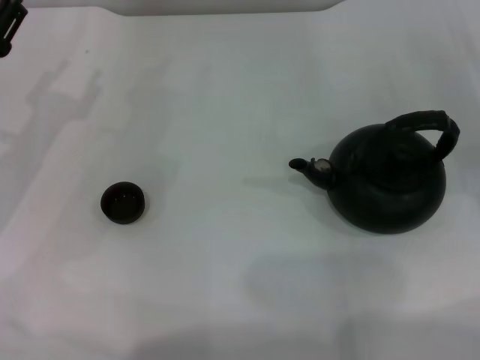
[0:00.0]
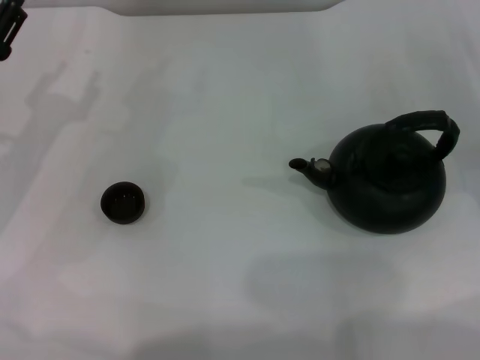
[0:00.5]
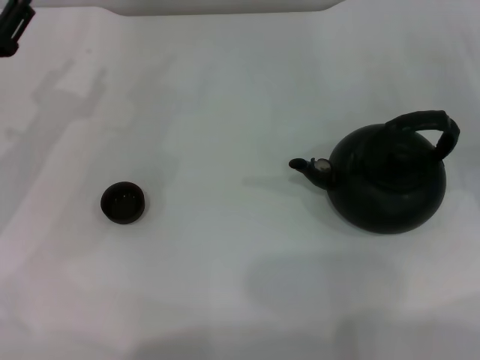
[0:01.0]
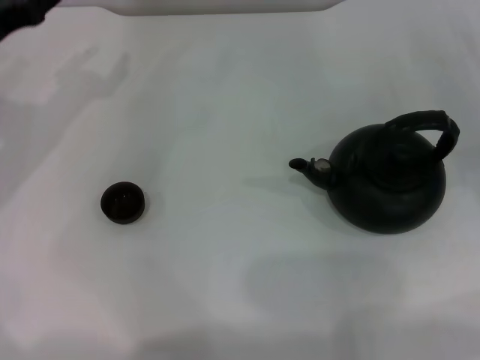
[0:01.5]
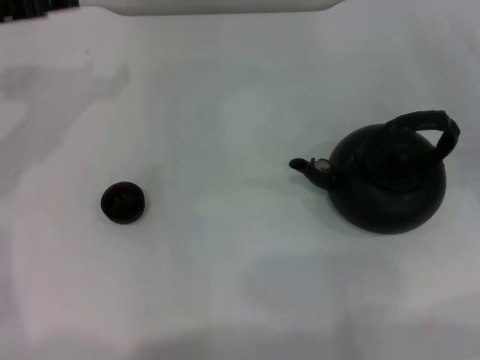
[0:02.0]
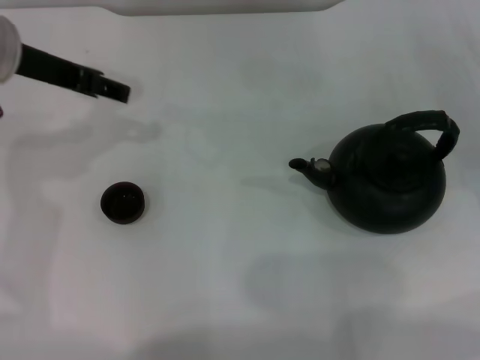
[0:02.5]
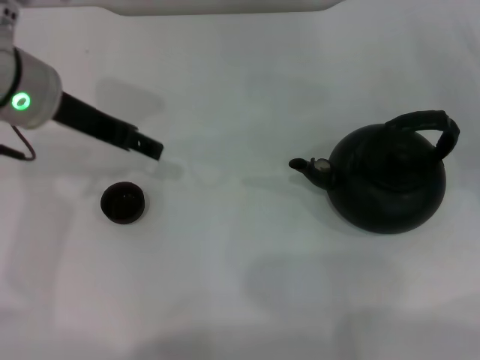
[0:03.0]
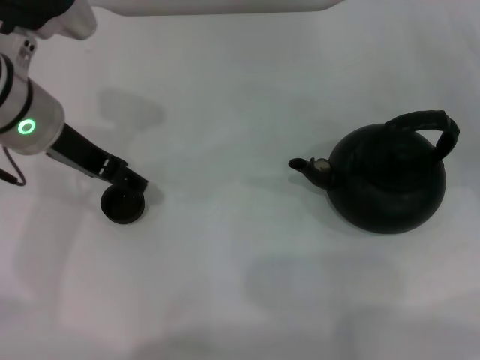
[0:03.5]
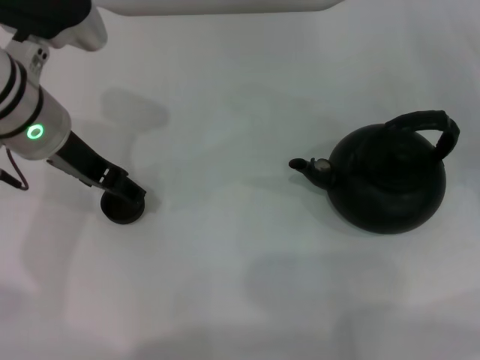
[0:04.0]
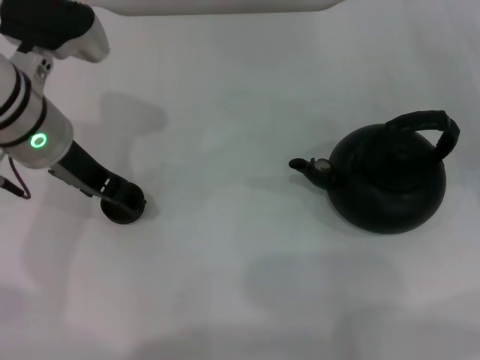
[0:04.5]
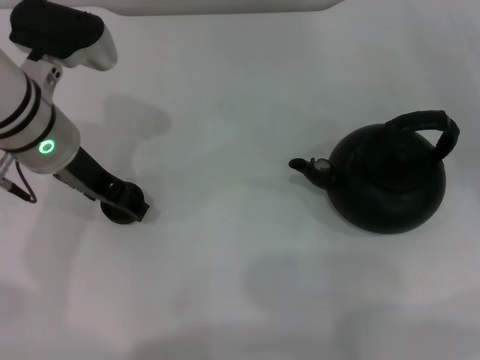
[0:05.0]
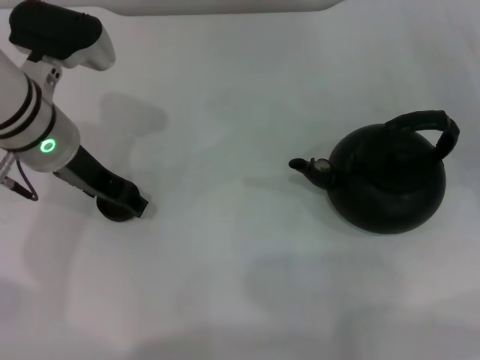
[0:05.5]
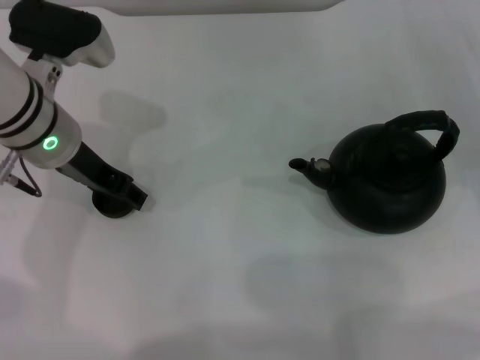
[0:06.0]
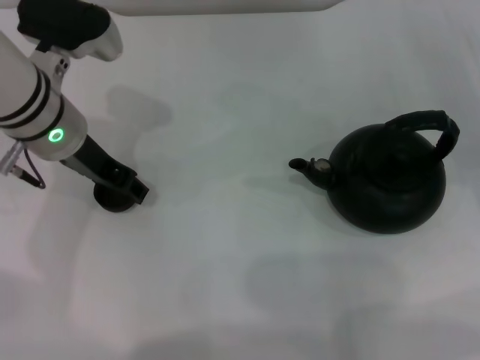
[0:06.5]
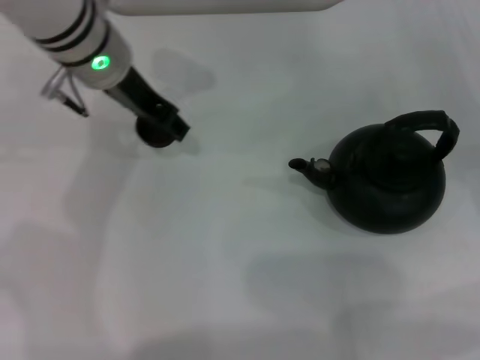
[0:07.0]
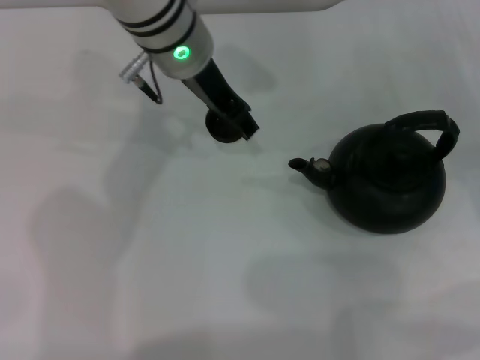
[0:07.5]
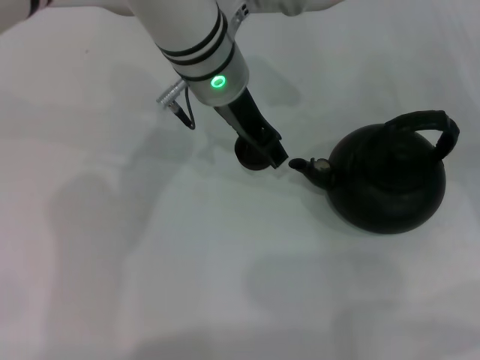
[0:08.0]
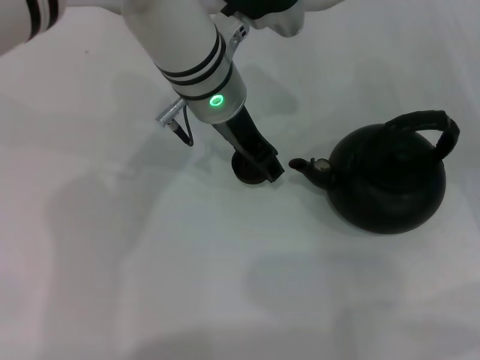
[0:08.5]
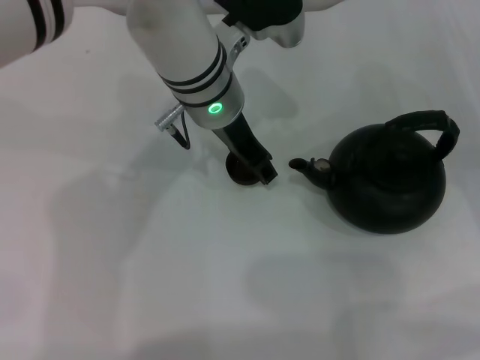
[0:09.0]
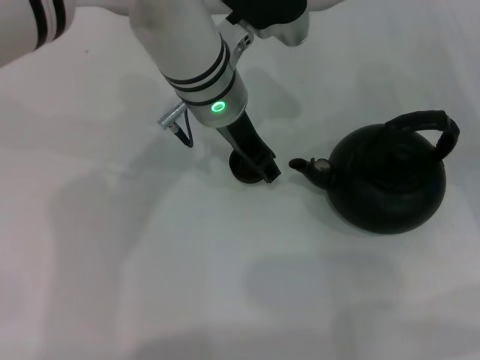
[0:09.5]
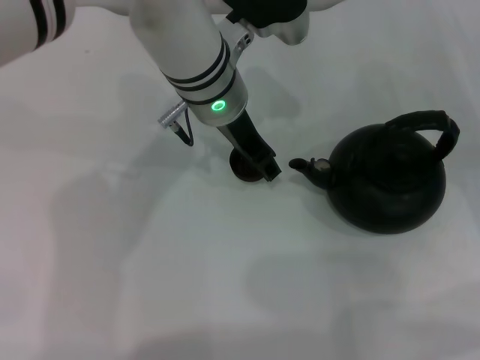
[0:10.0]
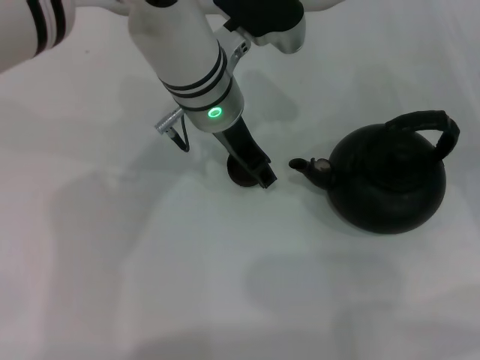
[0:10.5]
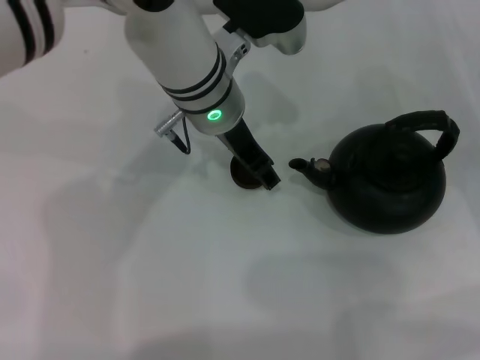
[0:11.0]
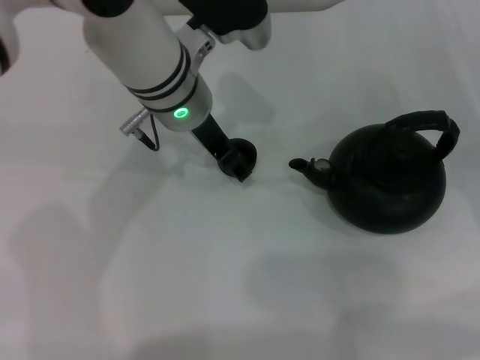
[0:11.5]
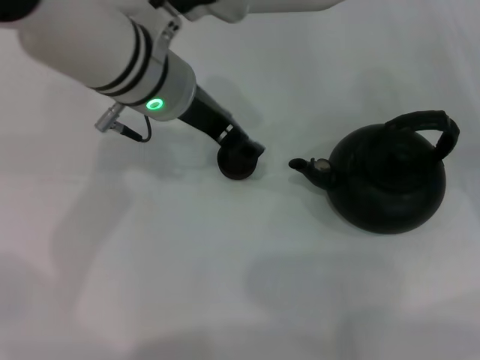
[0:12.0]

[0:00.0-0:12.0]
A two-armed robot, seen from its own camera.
Task of the whole recording: Grasp the handle of the teapot with one hand and pour tea into the teacup.
Step, 0:00.0 to 0:06.5: Pick up the teacup with the left gripper.
0:00.0 to 0:02.0: The left gripper travels upward and forward by about 15 cm.
0:02.0 to 0:04.0: The left gripper moves to the right, some 10 cm, and opens.
0:04.0 to 0:06.0: The grippers move only a little.
0:06.0 to 0:08.0: The left gripper heads to the right, covering approximately 15 cm, and closes its fingers.
0:08.0 to 0:10.0: There are only small adjustments of the grippers.
0:10.0 to 0:12.0: The left gripper travels to the left by approximately 5 cm.

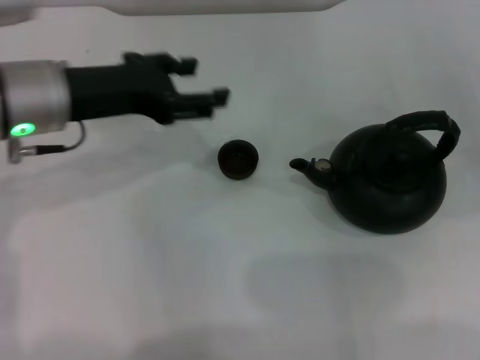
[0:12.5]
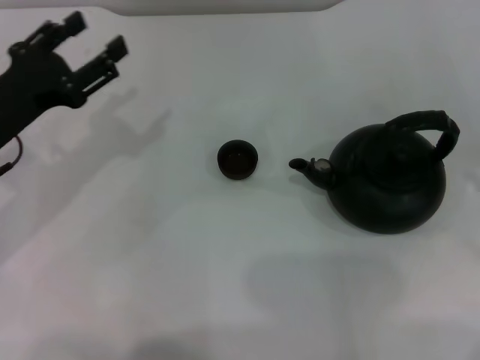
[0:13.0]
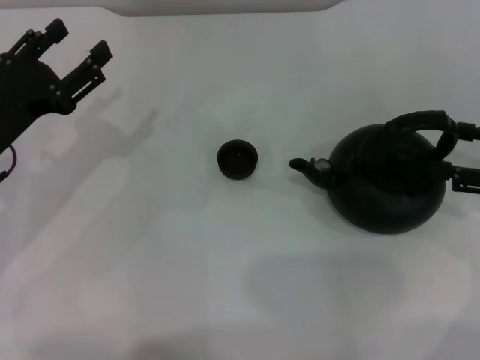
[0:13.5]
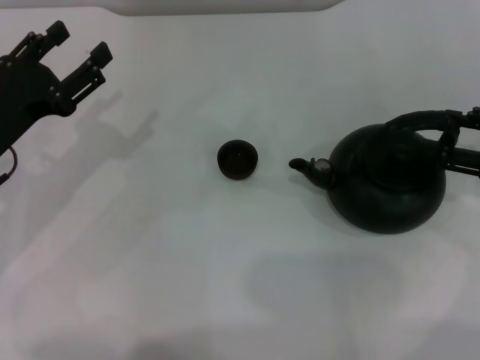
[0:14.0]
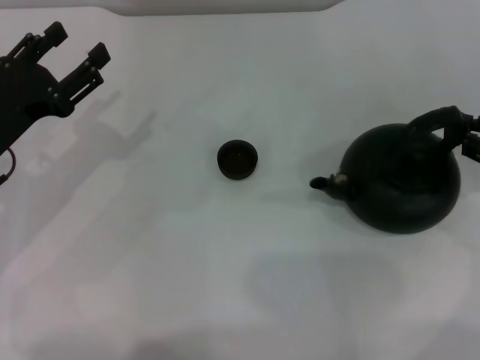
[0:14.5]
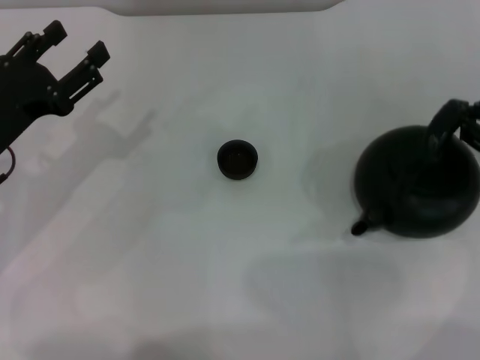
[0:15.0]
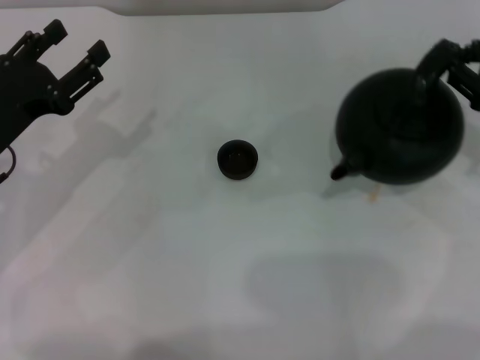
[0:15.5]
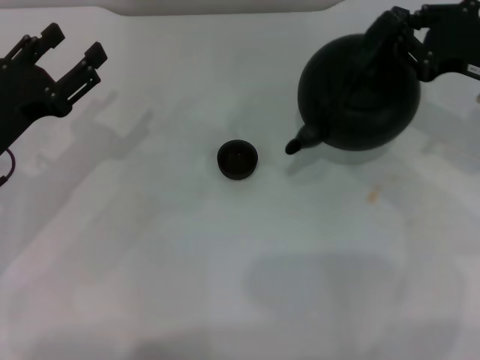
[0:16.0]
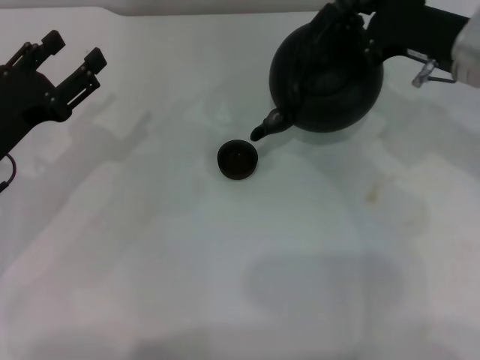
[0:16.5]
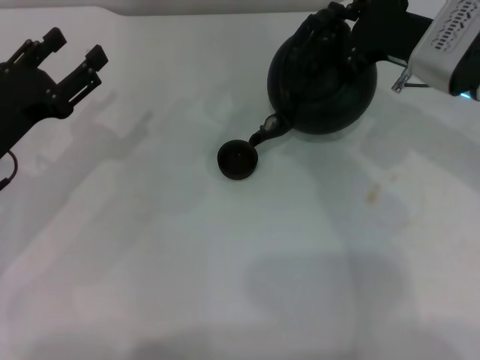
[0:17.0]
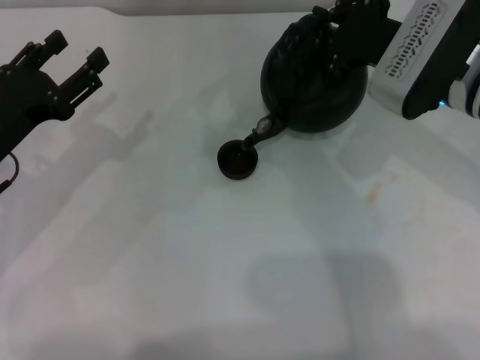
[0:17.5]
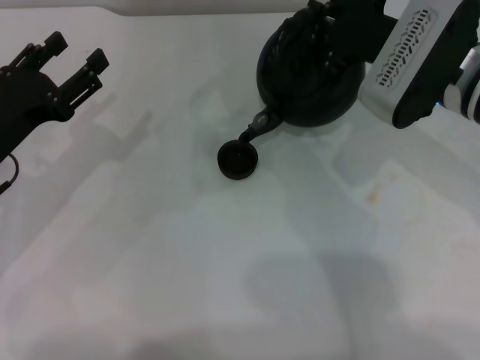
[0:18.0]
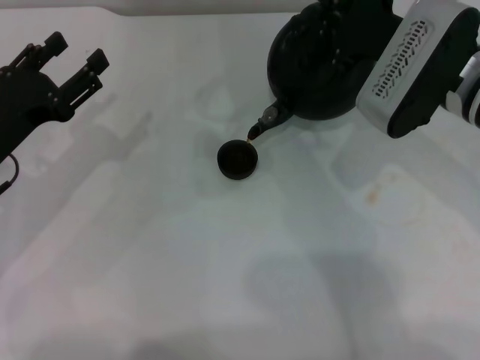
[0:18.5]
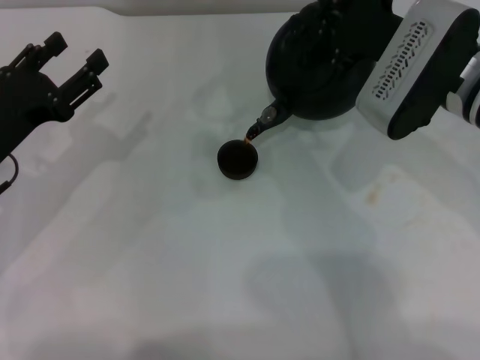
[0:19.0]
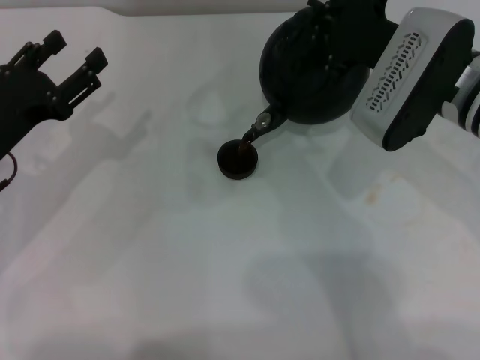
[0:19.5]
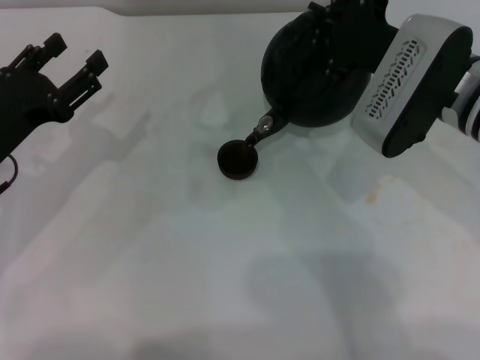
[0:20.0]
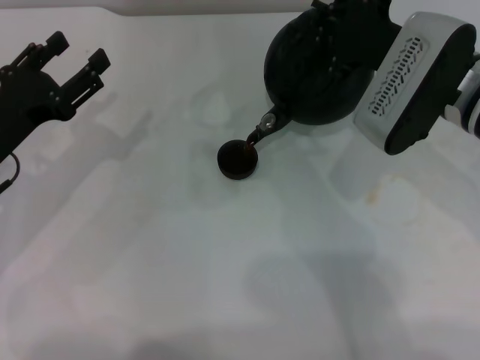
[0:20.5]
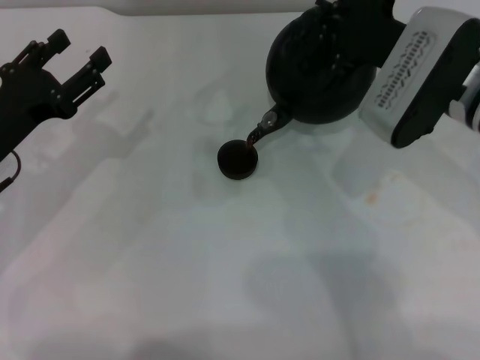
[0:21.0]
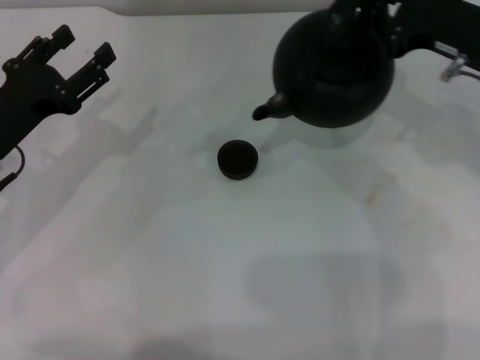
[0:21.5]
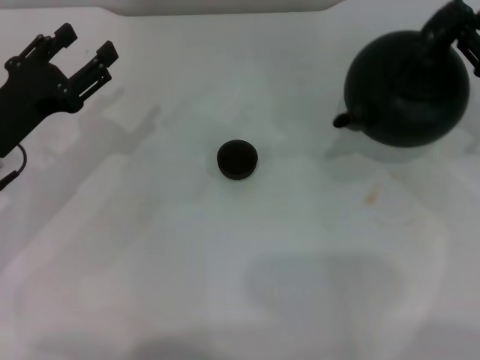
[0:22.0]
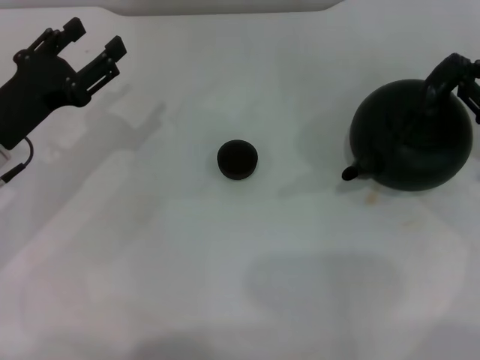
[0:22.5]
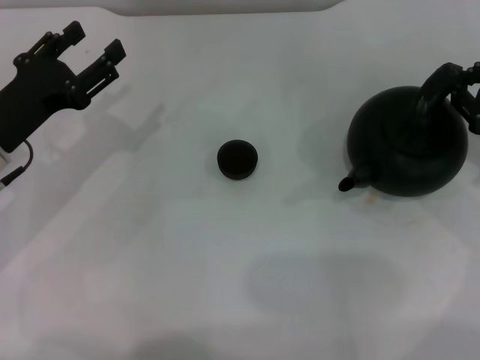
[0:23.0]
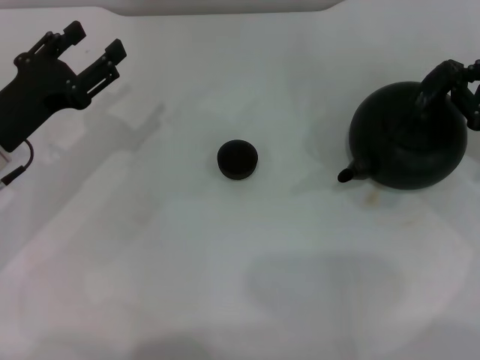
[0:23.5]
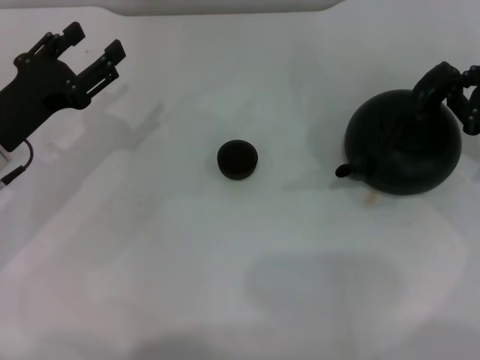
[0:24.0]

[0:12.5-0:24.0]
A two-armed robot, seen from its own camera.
Task of the whole recording: Grasp the handle of the teapot with one hand and pour tea into the teacup.
Step, 0:12.5 to 0:16.0: Pick up the teapot with the right gripper.
Step, 0:16.5 to 0:21.0: Pour tea into the teacup with the right gripper.
0:12.5 to 0:14.5: The right gripper is displaced to the left by approximately 5 cm, and closes up; the left gripper is displaced downward and to the left by about 10 cm.
0:14.5 to 0:16.5: The right gripper heads to the left and forward, covering about 15 cm, and closes its fingers.
0:16.5 to 0:18.5: The right gripper shifts roughly 5 cm to the left.
0:18.5 to 0:20.0: Neither gripper changes place.
0:20.0 to 0:22.0: The right gripper heads to the right, covering roughly 15 cm.
0:22.0 to 0:24.0: The grippers stay close to where they were, moving slightly.

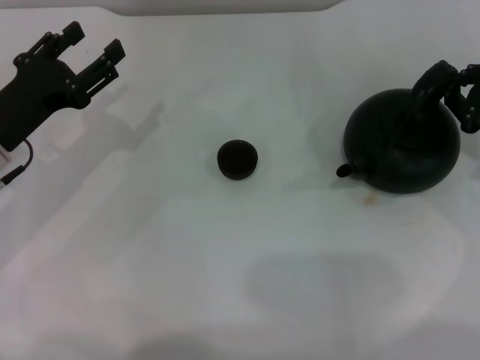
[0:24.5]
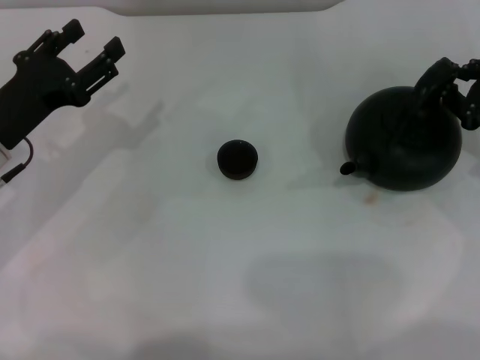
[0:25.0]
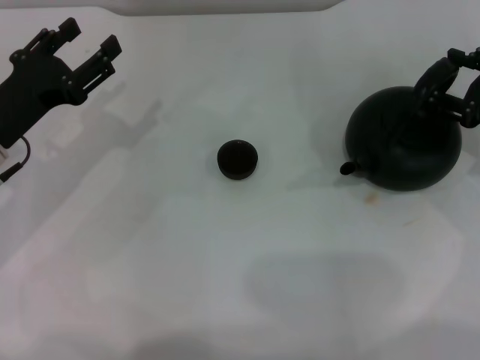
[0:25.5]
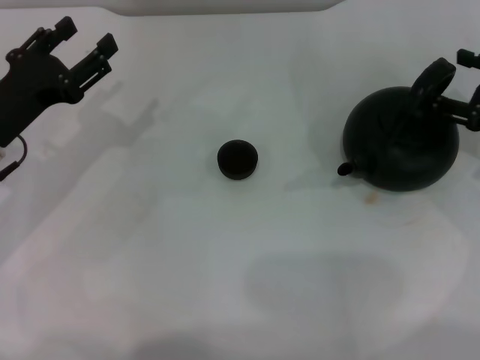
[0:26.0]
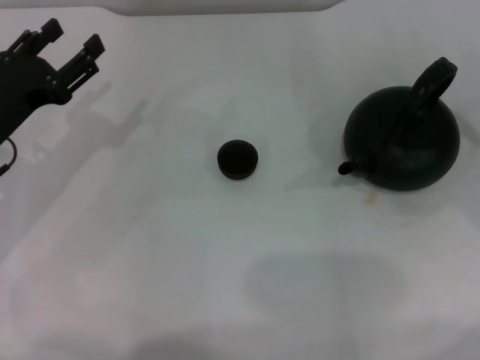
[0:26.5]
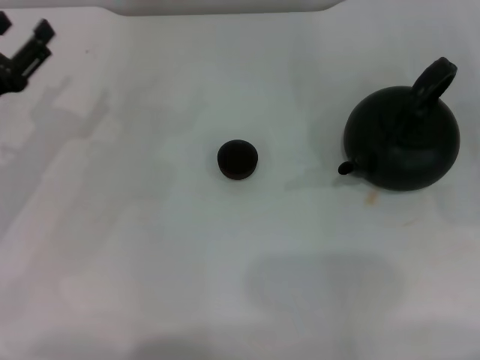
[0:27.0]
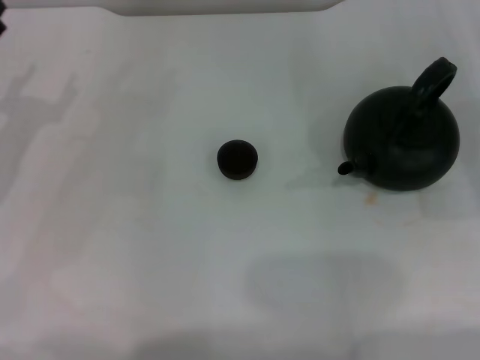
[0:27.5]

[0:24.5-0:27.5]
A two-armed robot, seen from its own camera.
Task of the whole recording: Grasp the handle of the teapot with one hand and pour tea into the teacup.
0:24.5 to 0:26.0: The right gripper opens its fingers.
0:26.0 to 0:27.5: The left gripper heads to the left, covering approximately 5 cm. The right gripper is displaced to the right by some 5 cm.
